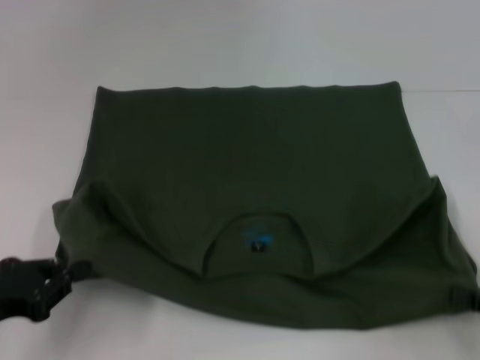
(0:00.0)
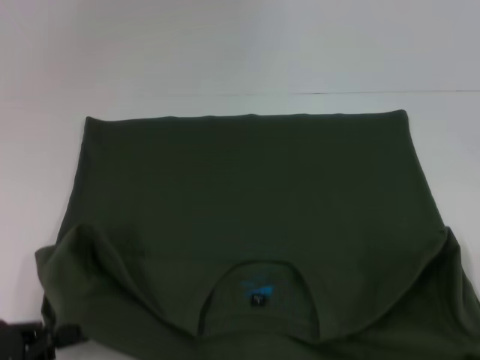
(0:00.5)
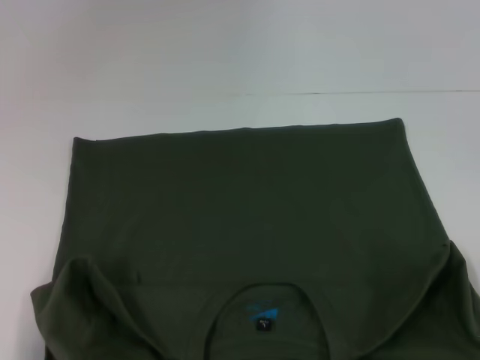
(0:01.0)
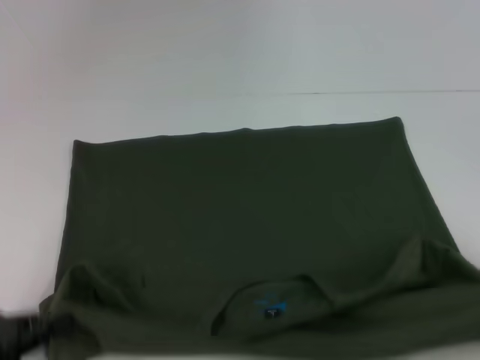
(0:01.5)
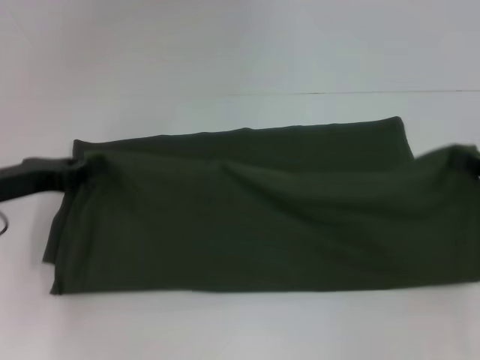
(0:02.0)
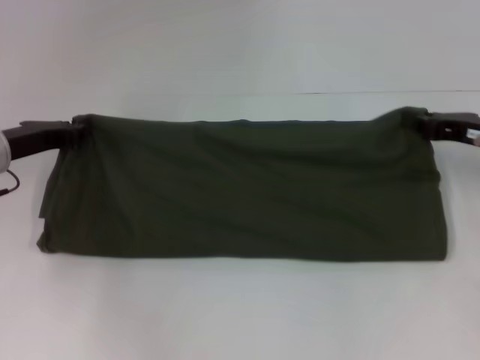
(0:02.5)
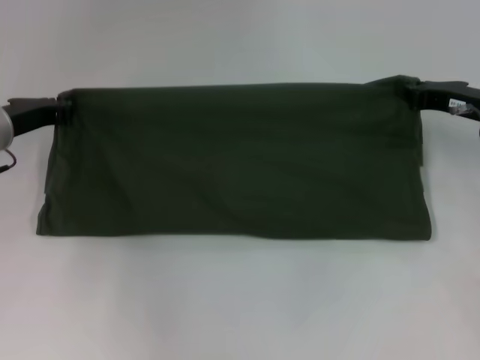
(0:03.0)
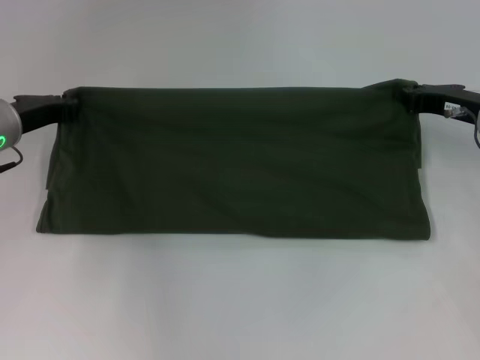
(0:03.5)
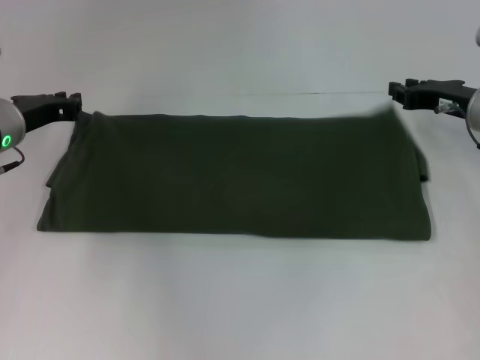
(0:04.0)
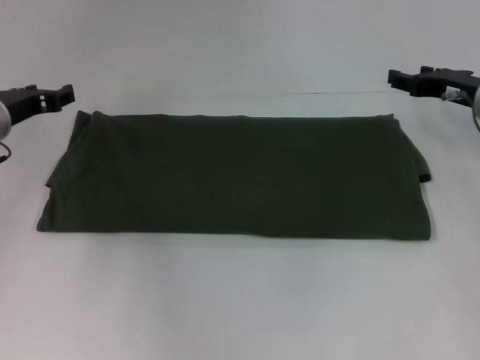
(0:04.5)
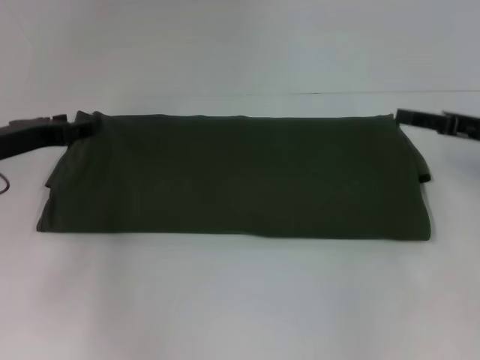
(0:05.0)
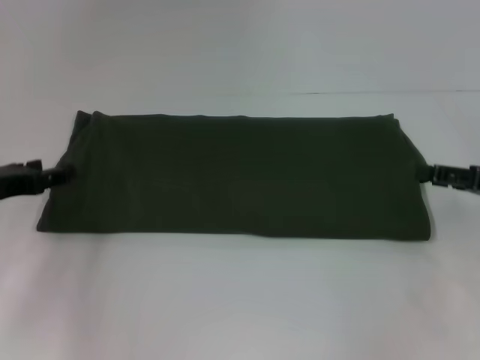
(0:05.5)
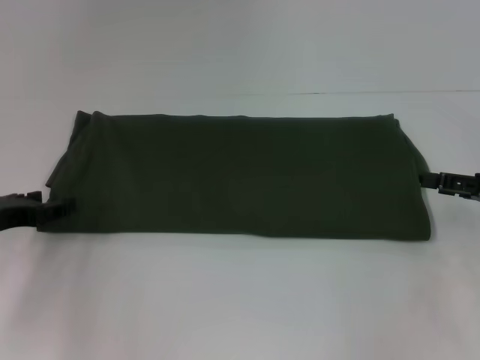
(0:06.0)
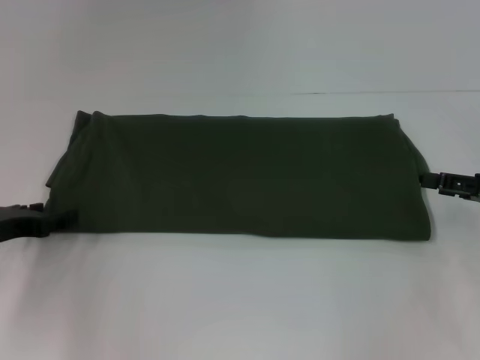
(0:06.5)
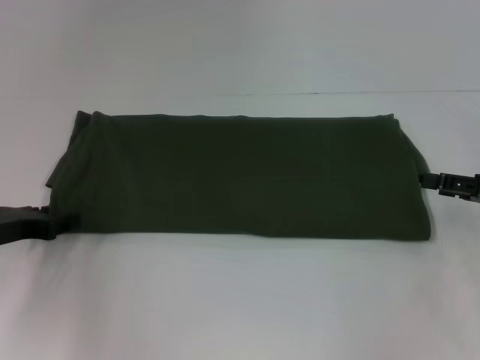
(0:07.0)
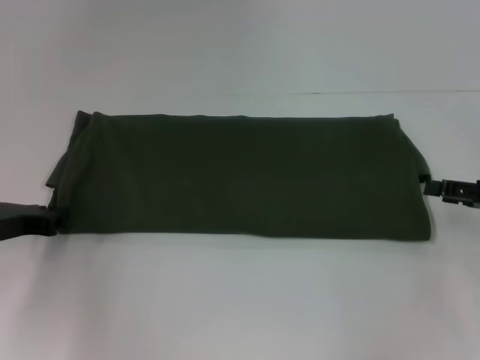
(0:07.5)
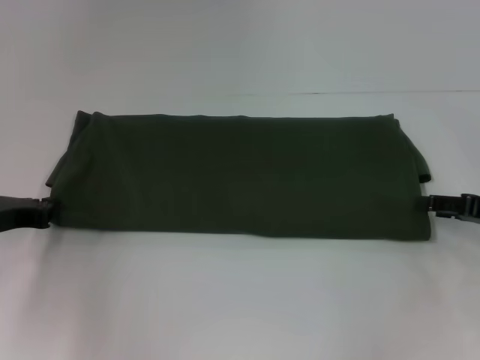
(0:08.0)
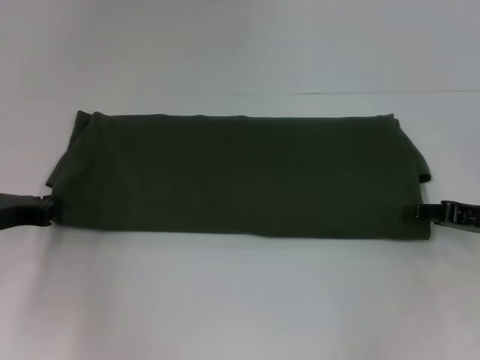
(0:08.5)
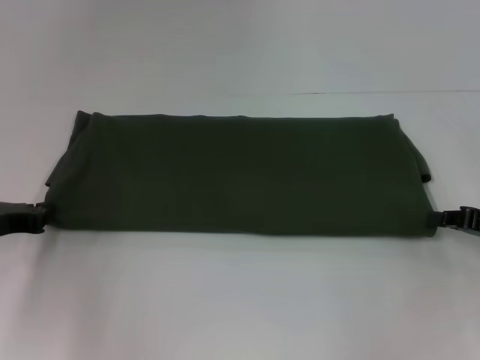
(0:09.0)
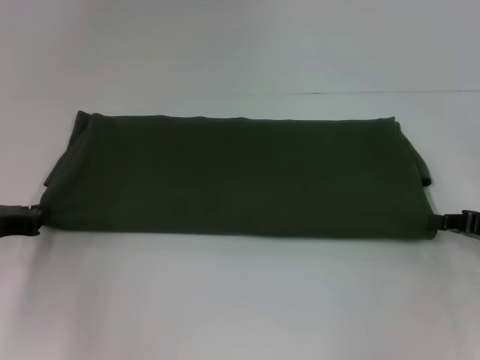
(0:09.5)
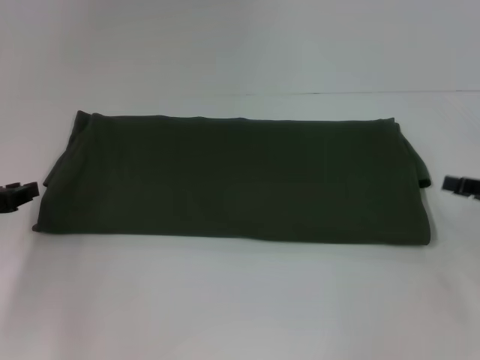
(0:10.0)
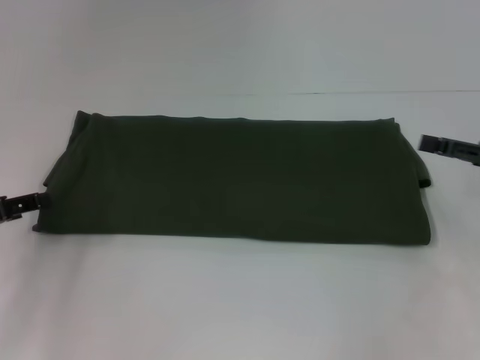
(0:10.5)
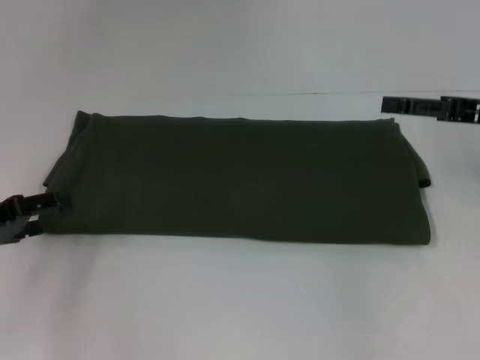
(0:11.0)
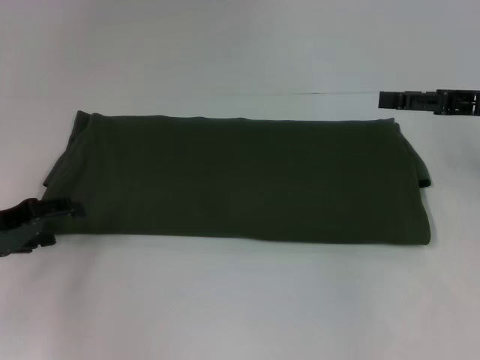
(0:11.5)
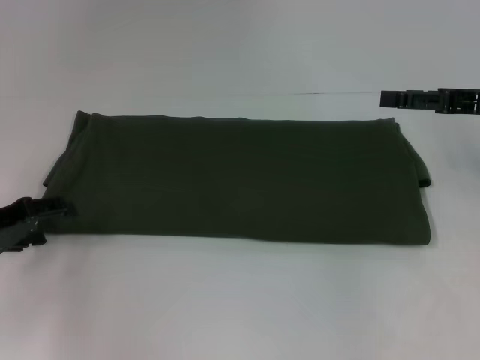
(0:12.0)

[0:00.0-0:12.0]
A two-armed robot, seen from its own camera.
Step, 0:01.0 to 0:04.0: Fold the clothes with your right hand.
0:00.0 to 0:02.0: The right gripper moves forward and upward, about 10 cm. Meanwhile the left gripper travels forward by approximately 10 cm.
0:02.0 to 0:04.0: The left gripper shifts about 10 cm forward. Meanwhile the right gripper moves forward and to the left, some 15 cm.
0:04.0 to 0:06.0: The right gripper heads backward and to the right, covering roughly 15 cm, and opens its fingers; the left gripper shifts about 10 cm backward, and opens its fingers.
0:08.0 to 0:10.0: The right gripper closes its fingers.
0:10.0 to 0:12.0: The right gripper moves upward, forward and to the left, about 10 cm, and opens its fingers. The left gripper opens up.

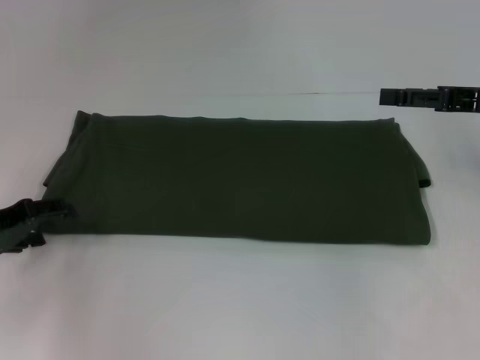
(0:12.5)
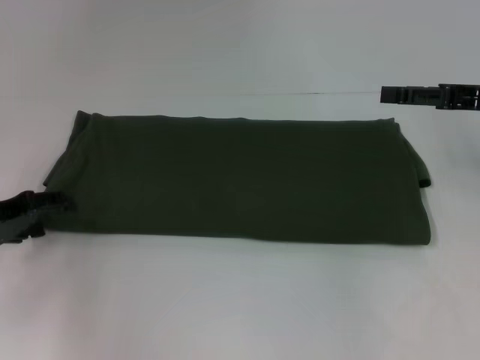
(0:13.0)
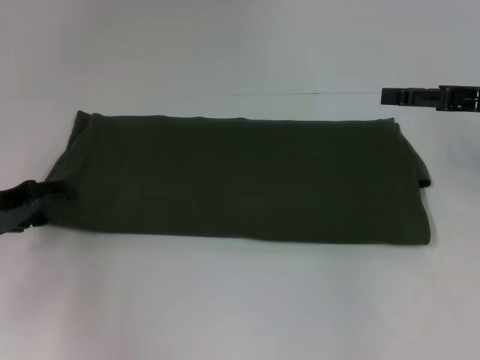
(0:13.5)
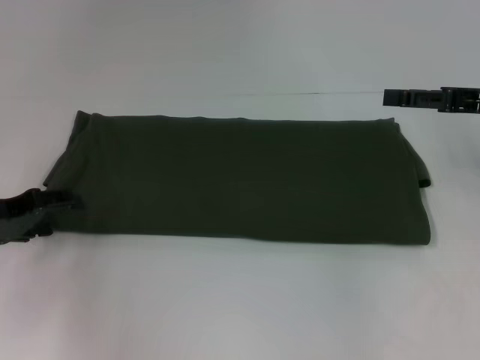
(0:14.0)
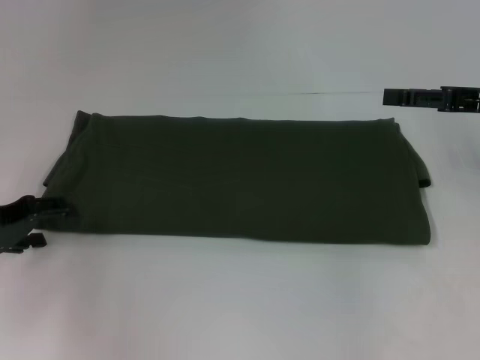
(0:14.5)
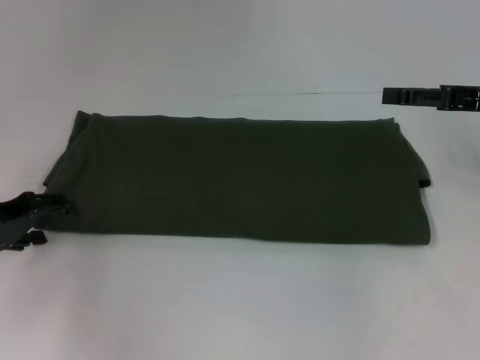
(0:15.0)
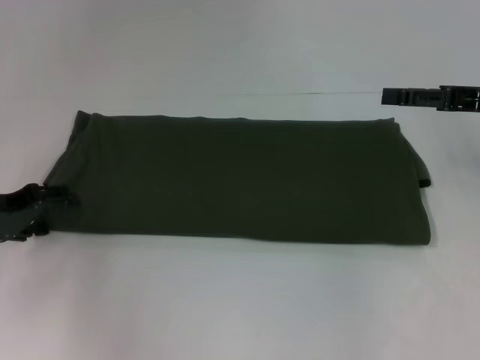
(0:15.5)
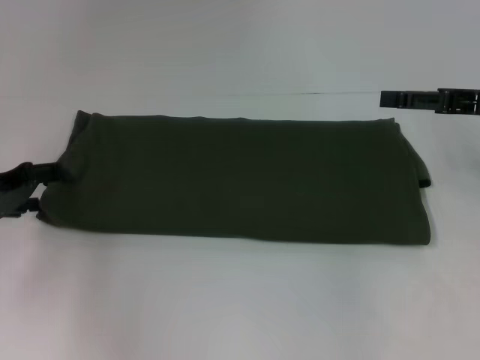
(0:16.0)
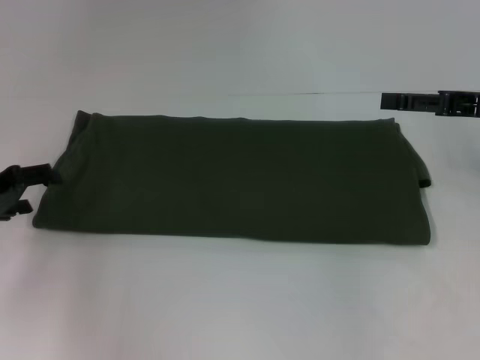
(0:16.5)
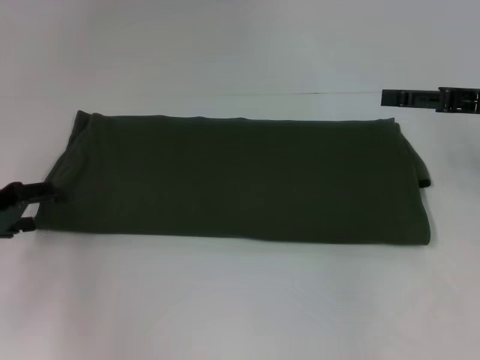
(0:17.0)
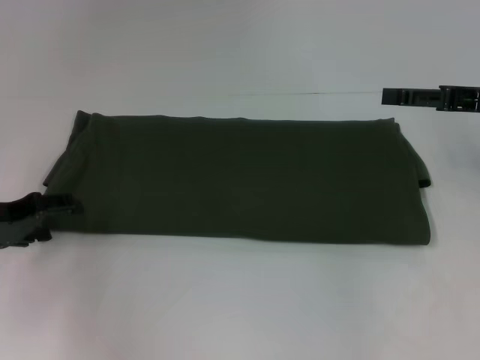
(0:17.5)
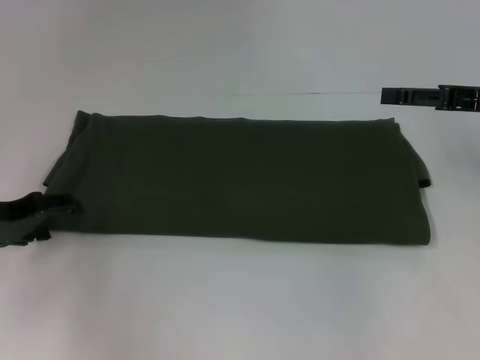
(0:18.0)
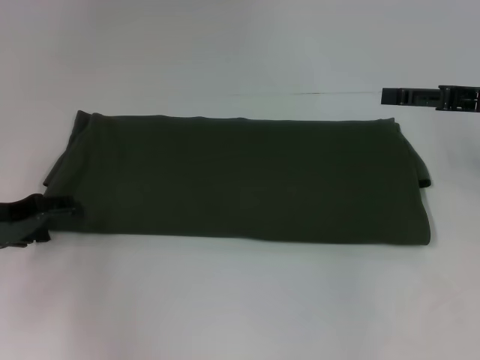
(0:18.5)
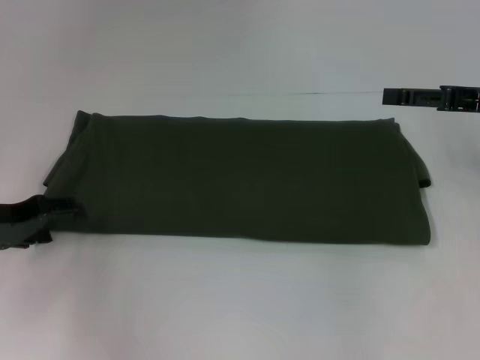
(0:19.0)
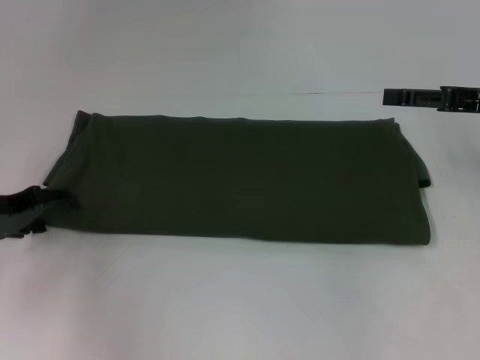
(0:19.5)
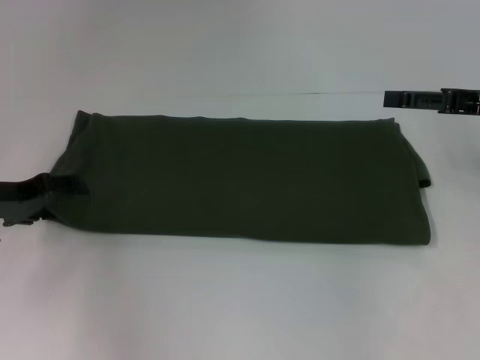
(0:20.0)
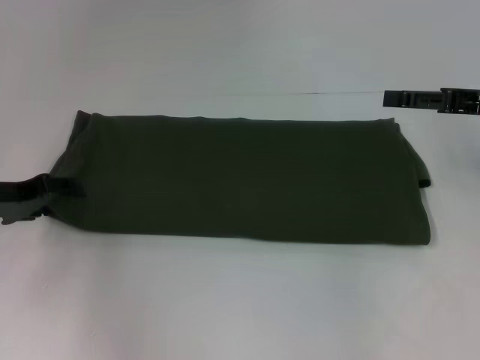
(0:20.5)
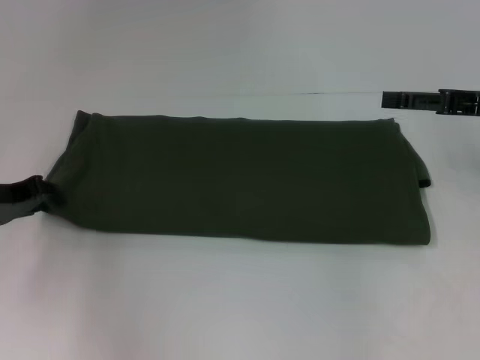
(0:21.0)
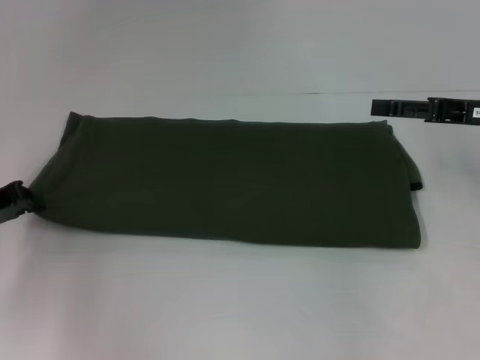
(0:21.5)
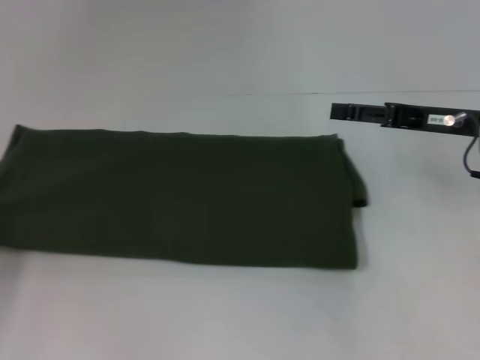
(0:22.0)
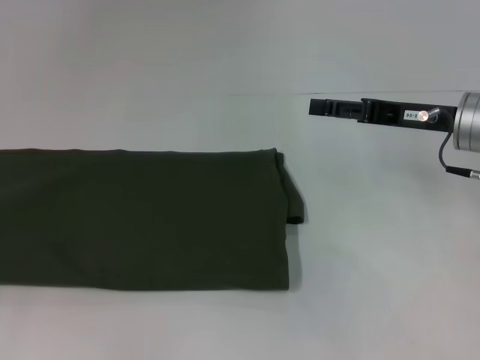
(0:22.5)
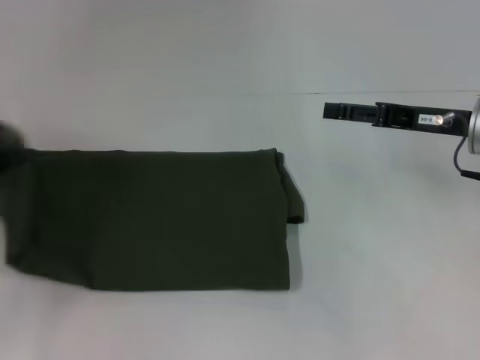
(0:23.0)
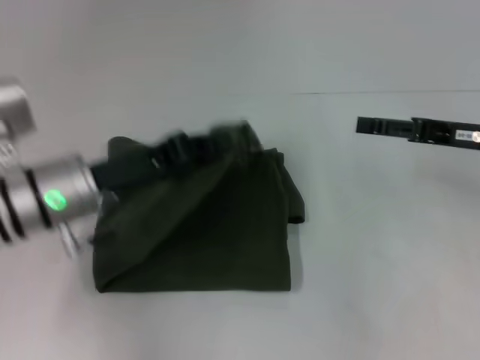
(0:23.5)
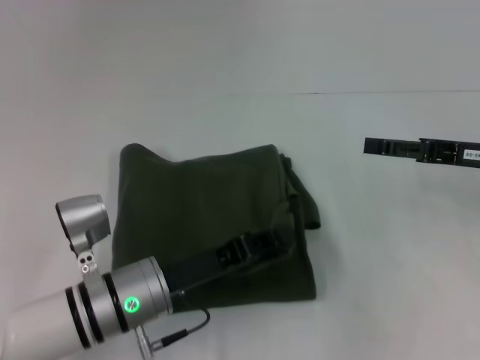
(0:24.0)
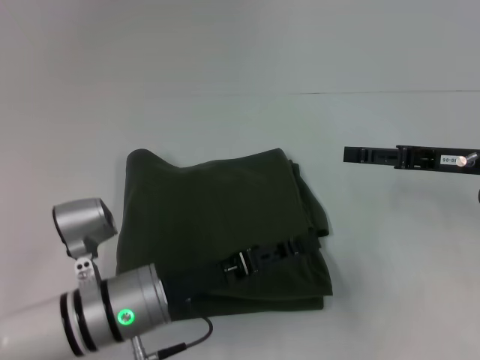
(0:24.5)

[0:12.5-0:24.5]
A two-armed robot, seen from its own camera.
Step, 0:12.5 to 0:24.0: Fold the clothes with your left hand.
0:14.5 to 0:20.5: The grippers make only small movements.
0:20.5 to 0:22.5: The left gripper is displaced to the left and backward by roughly 20 cm, and closes up; the right gripper is displaced to the left by about 5 cm.
0:22.5 to 0:24.5: The right gripper ends up about 5 cm from where it was. Meanwhile the left gripper moves to the right, approximately 30 cm.

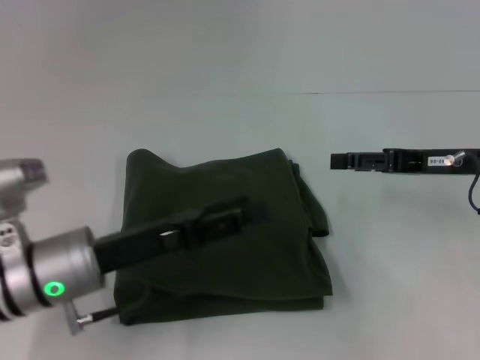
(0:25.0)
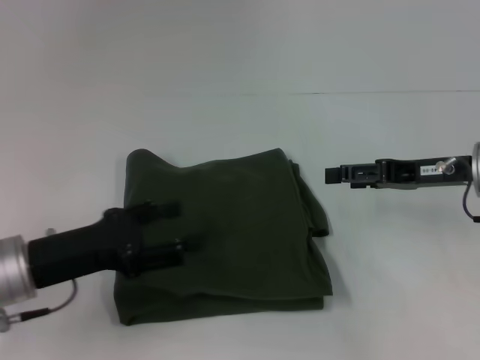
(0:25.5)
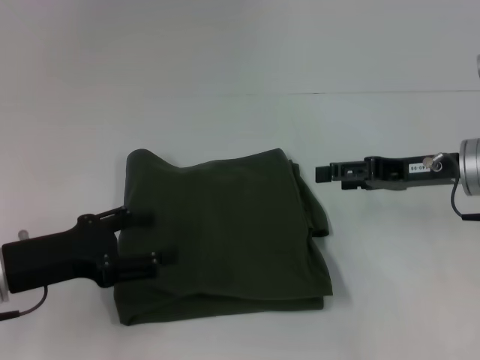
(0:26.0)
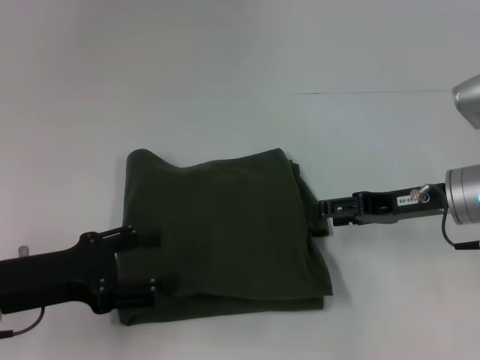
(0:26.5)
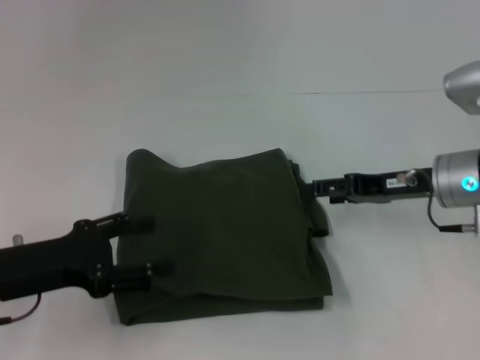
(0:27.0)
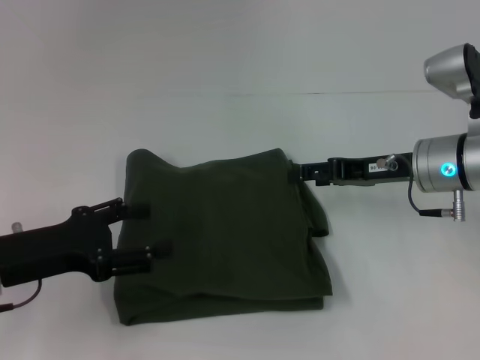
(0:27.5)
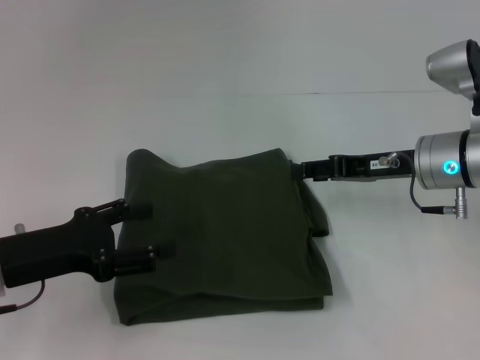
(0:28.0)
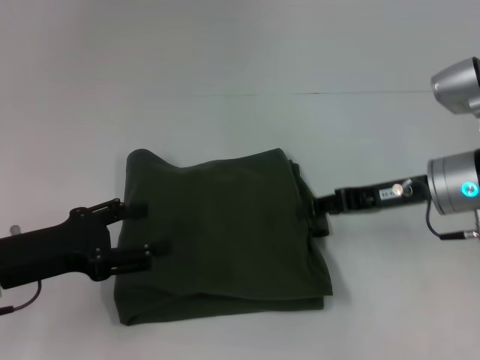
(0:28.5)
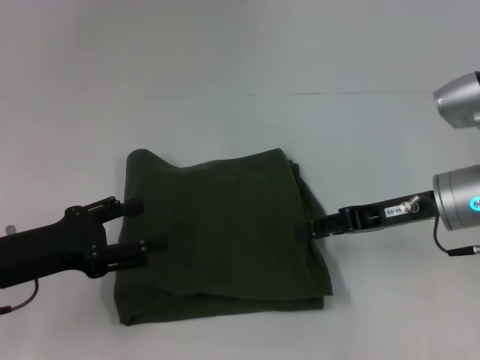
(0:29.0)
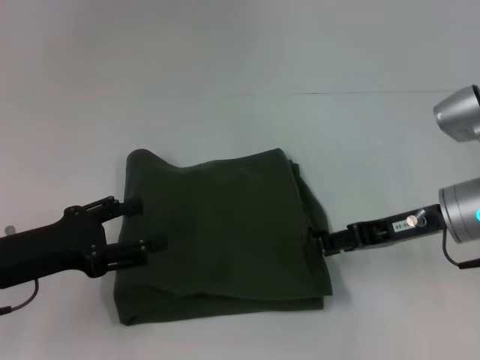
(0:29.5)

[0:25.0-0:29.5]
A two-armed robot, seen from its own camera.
0:25.0 to 0:27.0: The left gripper goes roughly 10 cm to the left.
0:27.0 to 0:29.5: The grippers move only a little.
